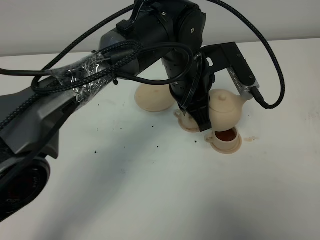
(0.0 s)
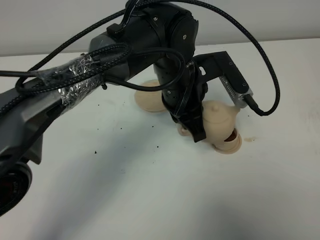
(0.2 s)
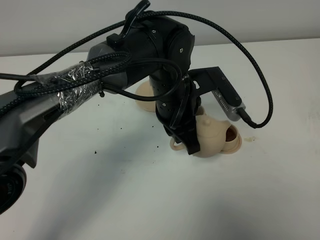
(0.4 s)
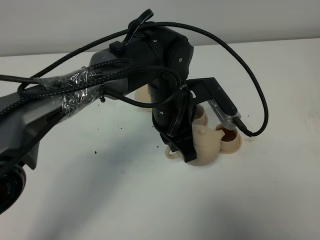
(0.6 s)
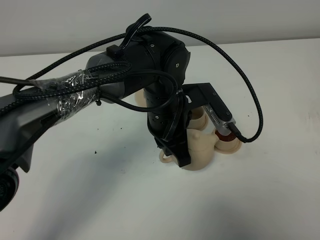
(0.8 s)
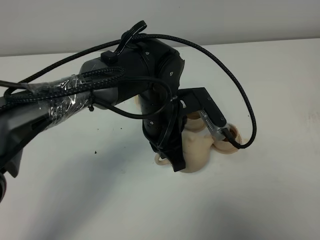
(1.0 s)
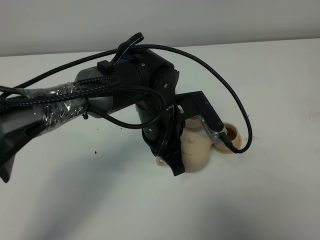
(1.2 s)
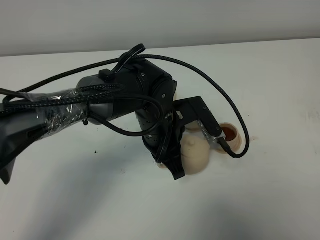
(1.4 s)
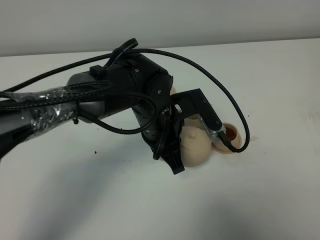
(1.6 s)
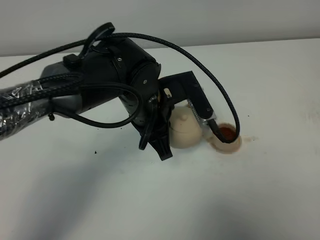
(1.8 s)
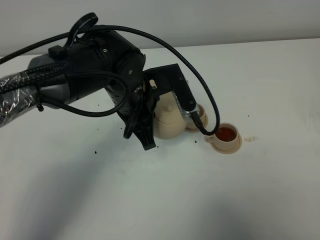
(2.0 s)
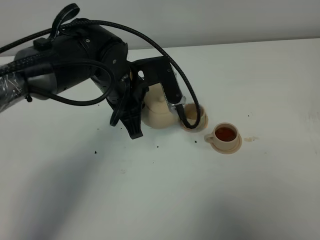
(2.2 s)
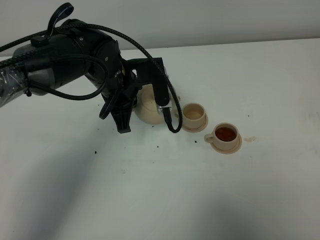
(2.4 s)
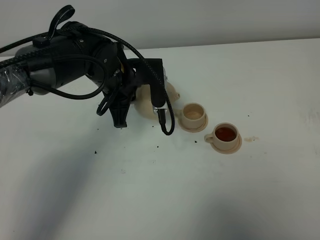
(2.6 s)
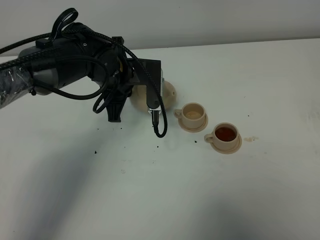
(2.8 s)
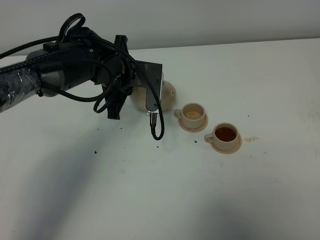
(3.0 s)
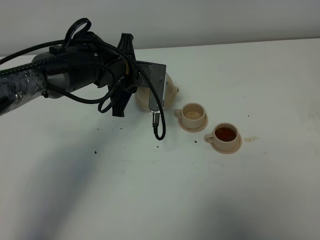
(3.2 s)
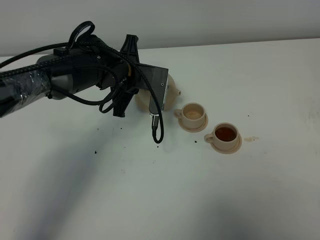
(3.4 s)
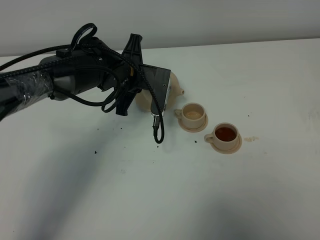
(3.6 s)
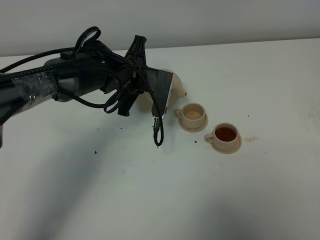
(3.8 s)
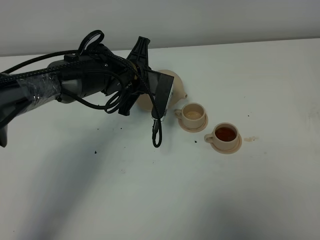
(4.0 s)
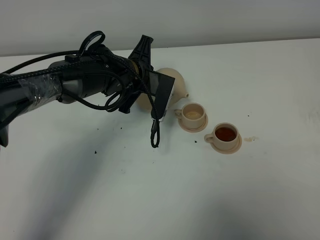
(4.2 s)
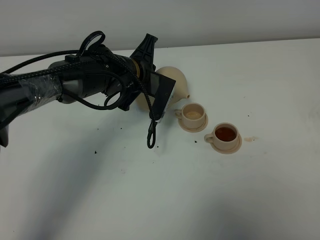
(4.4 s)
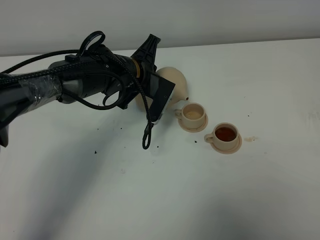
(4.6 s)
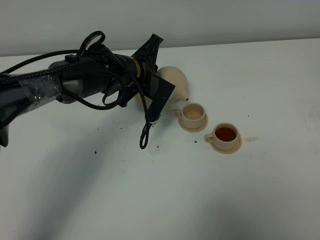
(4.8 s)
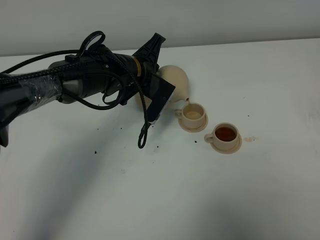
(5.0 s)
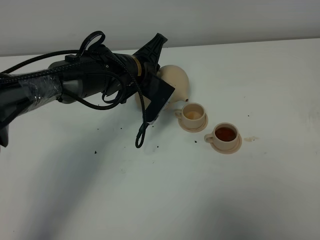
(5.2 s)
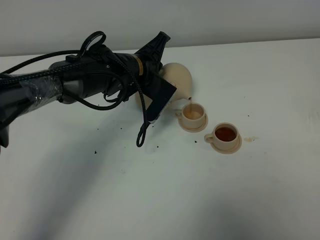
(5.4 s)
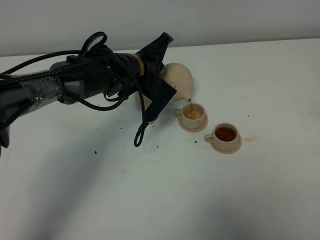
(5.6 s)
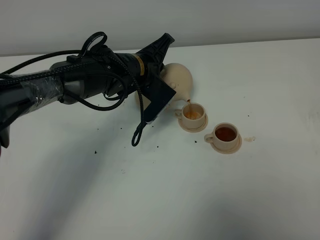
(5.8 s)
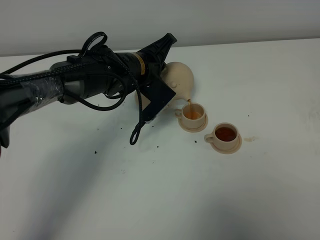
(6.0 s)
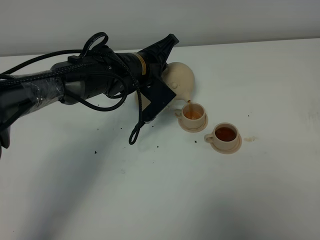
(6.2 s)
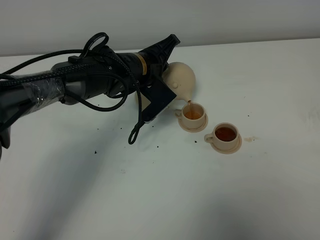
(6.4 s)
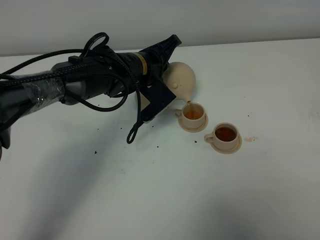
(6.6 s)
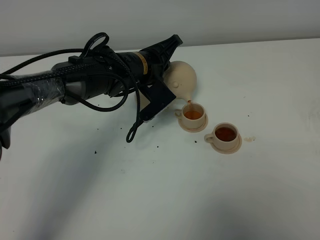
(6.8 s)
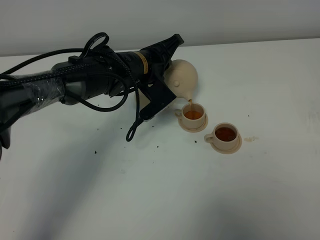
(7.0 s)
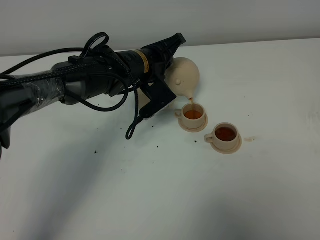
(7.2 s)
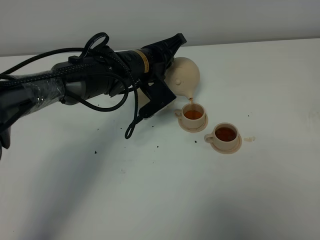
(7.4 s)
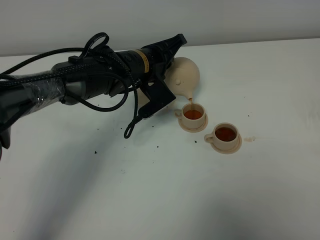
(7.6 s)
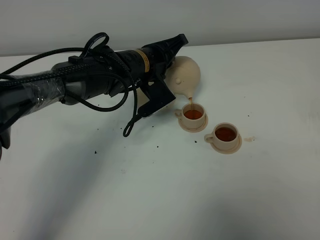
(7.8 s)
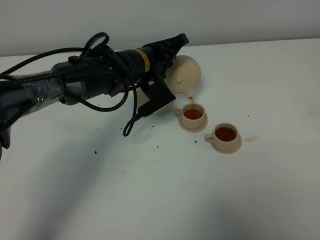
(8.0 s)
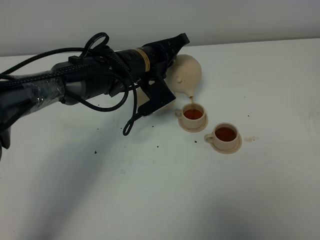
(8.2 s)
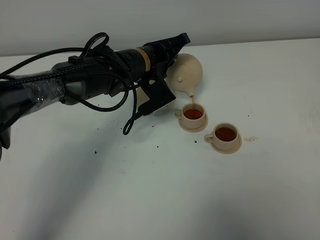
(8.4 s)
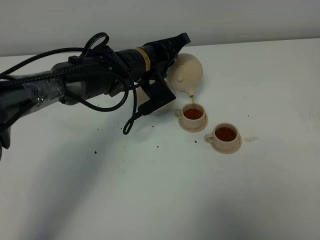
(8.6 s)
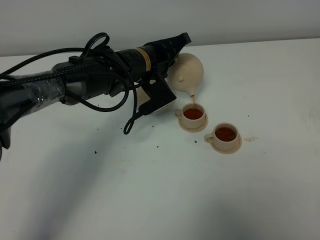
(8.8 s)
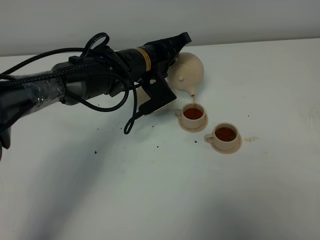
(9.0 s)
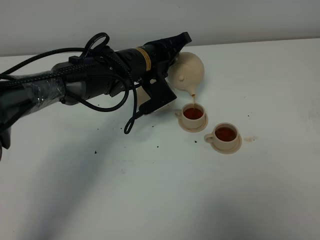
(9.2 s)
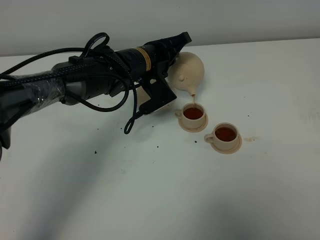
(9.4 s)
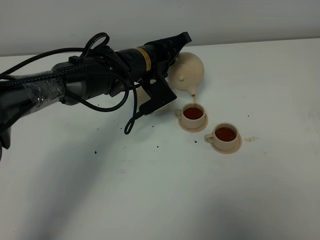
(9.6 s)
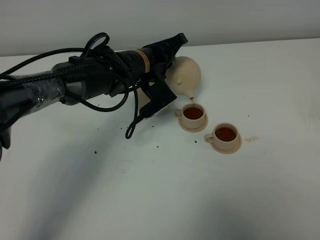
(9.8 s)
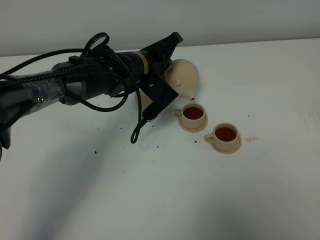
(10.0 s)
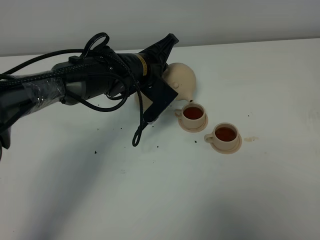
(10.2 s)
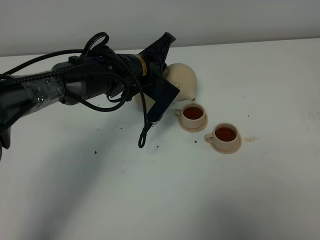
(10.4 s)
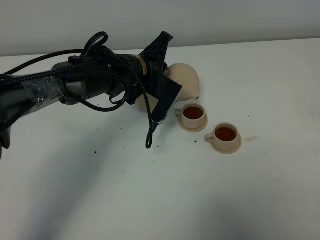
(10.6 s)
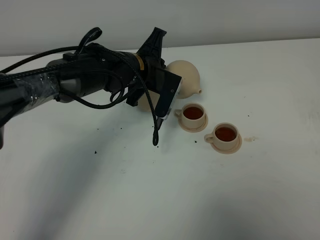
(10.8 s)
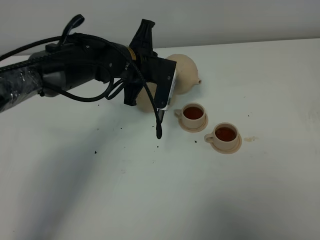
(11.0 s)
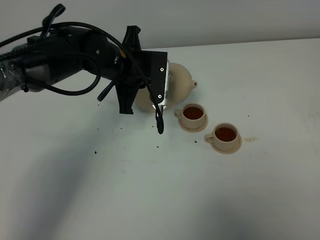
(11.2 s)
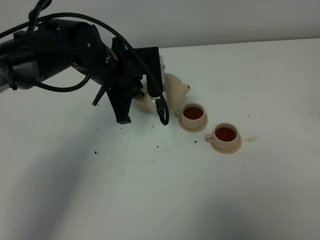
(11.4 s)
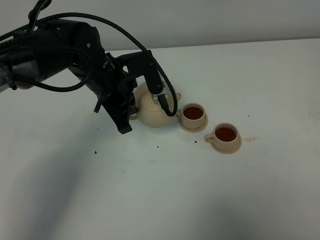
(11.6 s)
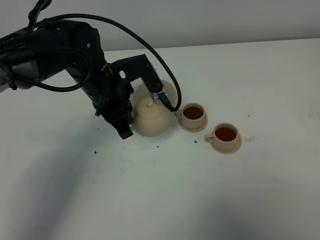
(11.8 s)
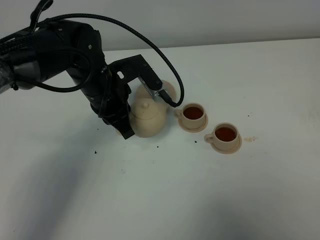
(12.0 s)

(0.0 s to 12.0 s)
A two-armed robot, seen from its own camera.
Task of the whole recording: grasp the brown teapot and pour the tea into the two brown teacups one by one, put the brown teapot back in its original place.
Step, 0.0 s - 10.6 s: Pour tea into the teacup with the left gripper.
0.0 s - 1.6 s: The left gripper moves to the left and downward, some 5 cm.
1.6 s - 3.0 s: The left gripper heads forward and to the left, covering some 10 cm.
6.0 s - 9.0 s: The grippers move only a little.
10.4 s - 12.0 s: The left gripper goes approximately 10 cm backward and to the left.

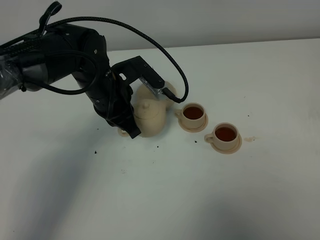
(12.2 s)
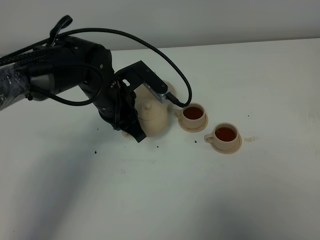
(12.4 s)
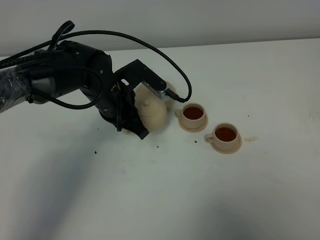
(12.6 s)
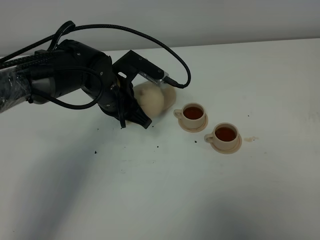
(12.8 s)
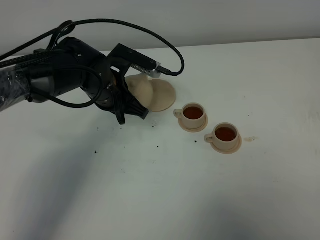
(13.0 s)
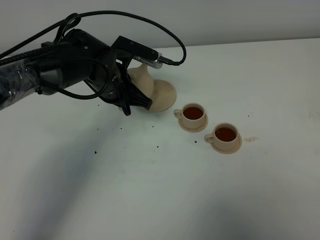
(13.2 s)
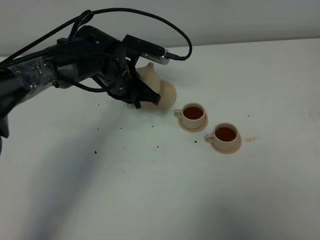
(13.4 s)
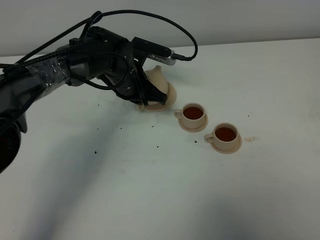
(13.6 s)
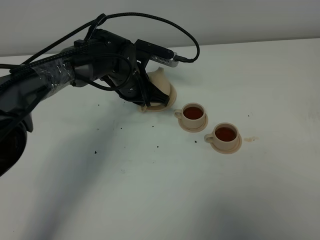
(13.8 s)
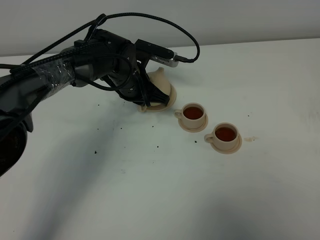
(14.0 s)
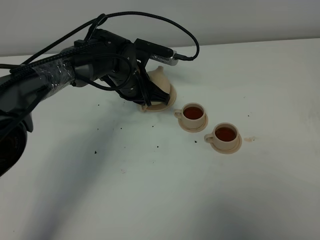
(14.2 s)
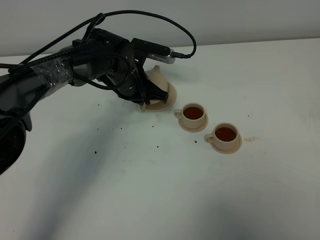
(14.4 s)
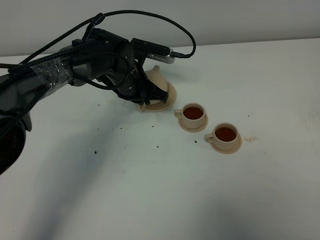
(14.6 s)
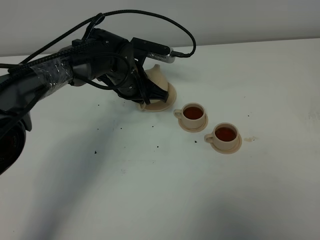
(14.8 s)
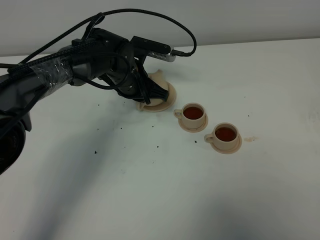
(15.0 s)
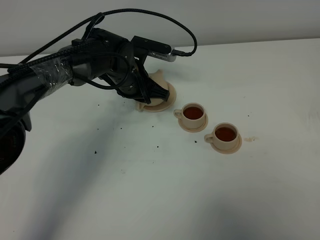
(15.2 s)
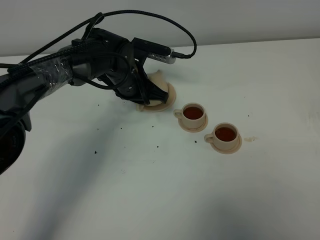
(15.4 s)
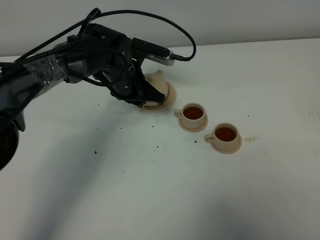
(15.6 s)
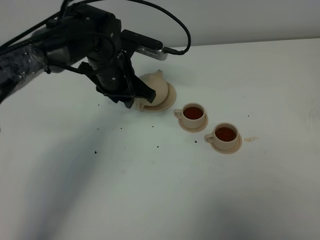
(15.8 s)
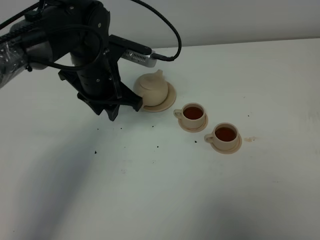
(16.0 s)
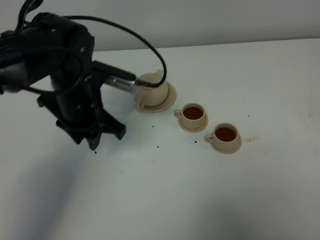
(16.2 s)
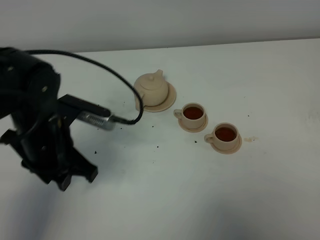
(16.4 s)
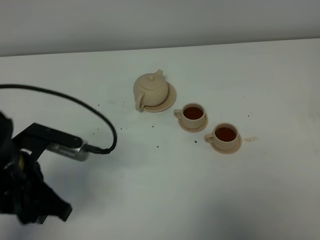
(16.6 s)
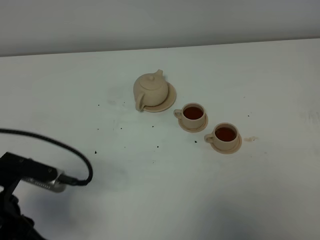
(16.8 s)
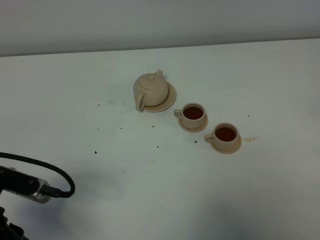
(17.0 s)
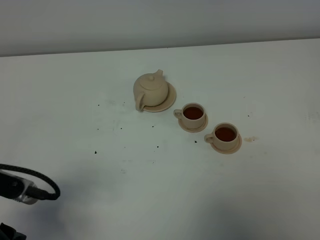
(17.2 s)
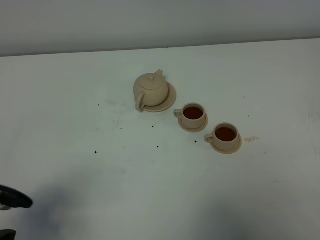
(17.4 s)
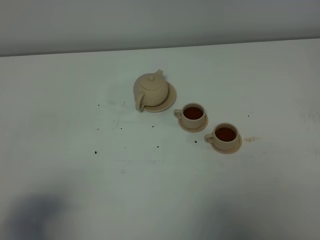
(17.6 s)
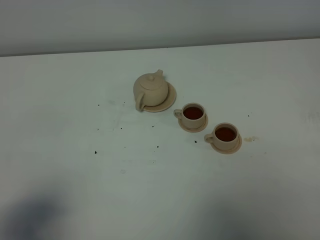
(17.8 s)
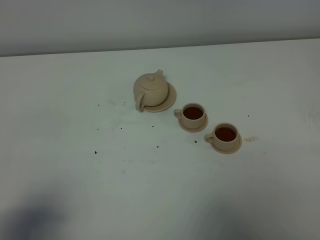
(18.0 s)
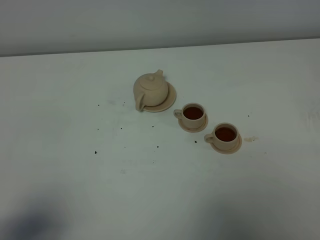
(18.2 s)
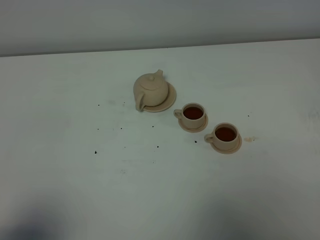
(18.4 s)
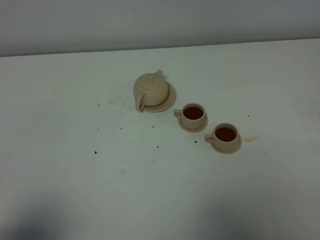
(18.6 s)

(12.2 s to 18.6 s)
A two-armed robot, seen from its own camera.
Task of the whole recording: grasp the brown teapot and pour the tea into the two brown teacups one by one, put the brown teapot back in its original place.
12.2 s - 13.8 s: The left gripper goes about 5 cm forward.
13.8 s - 15.4 s: The left gripper opens.
15.4 s - 17.0 s: The left gripper heads backward and to the left, covering approximately 35 cm.
17.0 s - 18.6 s: The left gripper moves backward and to the left, some 10 cm.

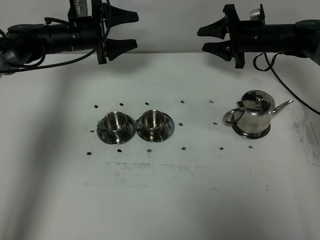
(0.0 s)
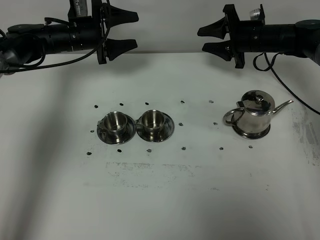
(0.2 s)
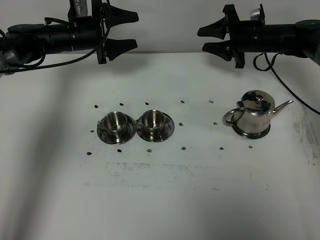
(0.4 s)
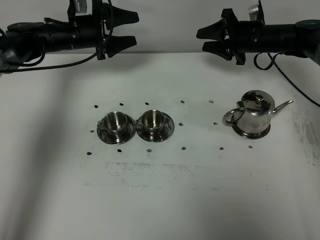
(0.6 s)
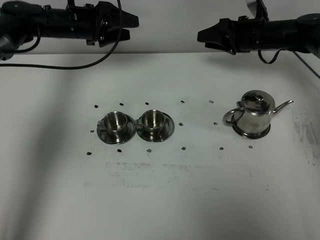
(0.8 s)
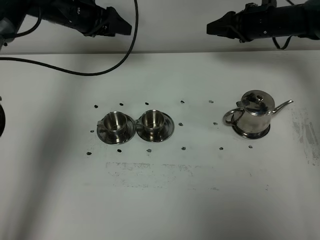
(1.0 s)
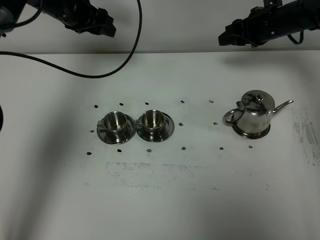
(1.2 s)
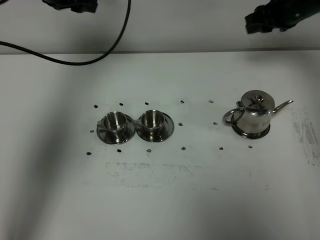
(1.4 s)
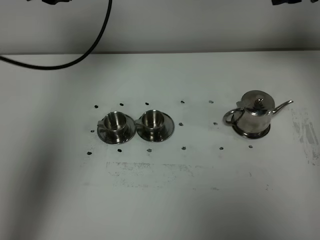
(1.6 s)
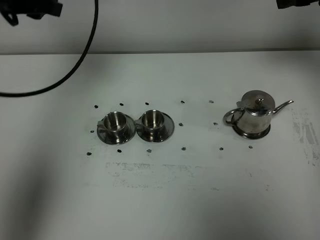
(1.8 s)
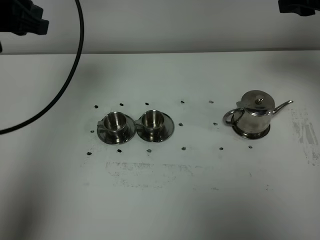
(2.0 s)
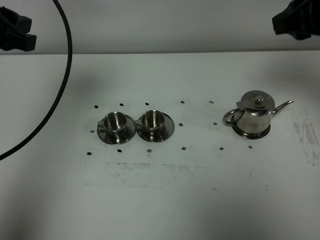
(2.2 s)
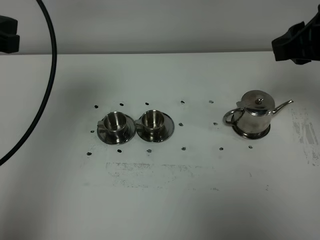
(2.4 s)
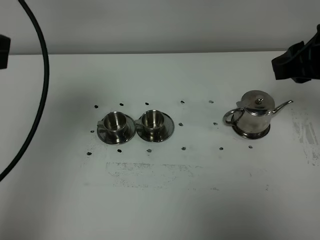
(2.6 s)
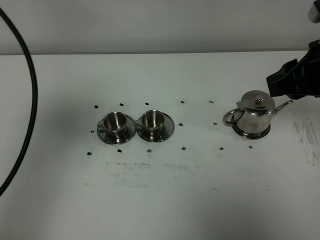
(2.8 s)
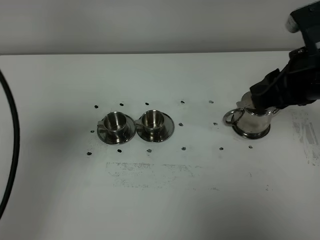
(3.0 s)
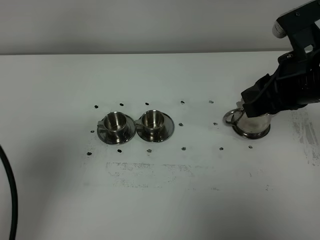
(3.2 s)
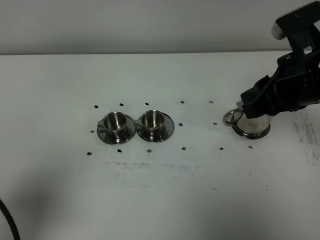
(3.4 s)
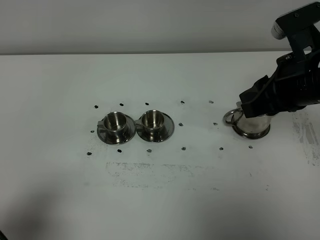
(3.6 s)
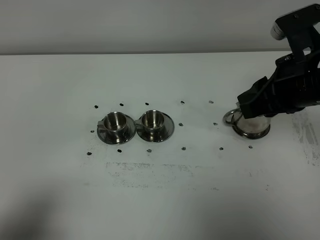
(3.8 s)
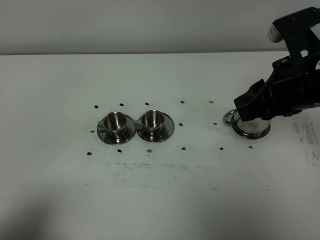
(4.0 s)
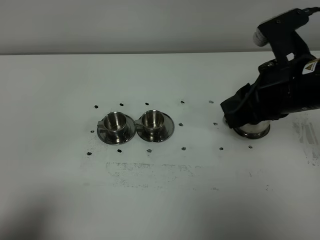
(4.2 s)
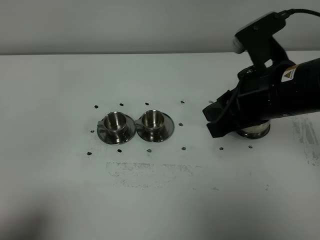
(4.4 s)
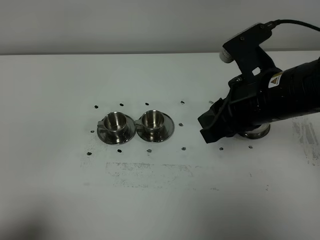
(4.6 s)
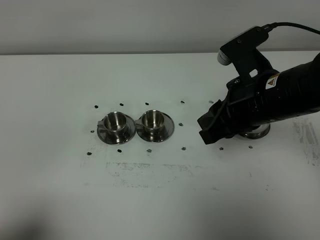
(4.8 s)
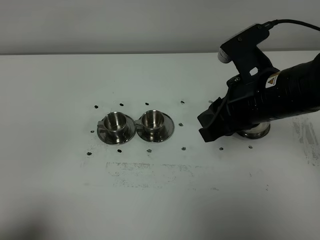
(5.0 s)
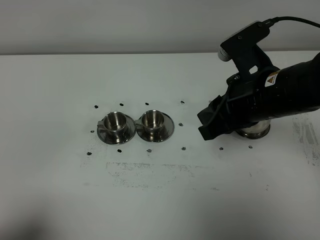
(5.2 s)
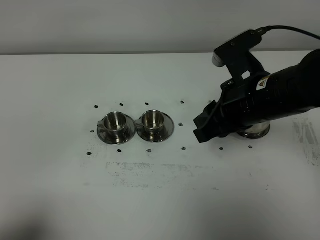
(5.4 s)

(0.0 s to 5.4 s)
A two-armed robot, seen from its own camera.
Task of the whole recording: grasp the stainless steel teapot and pour the tea into the two stainless steel teacups one by one, put the stainless steel teapot back in its original place.
0.0 s - 1.4 s: The left gripper heads upward, covering approximately 15 cm; the right gripper moves upward and backward, some 15 cm.
1.4 s - 2.8 s: The two grippers go roughly 25 cm backward. The left gripper closes.
2.8 s - 4.0 s: The left gripper goes roughly 20 cm backward and downward, and closes its fingers.
4.0 s - 5.4 s: The right gripper heads to the left, covering roughly 5 cm.
